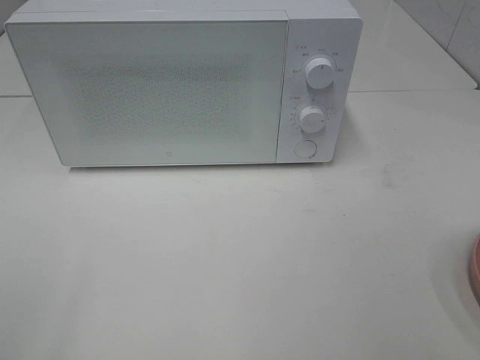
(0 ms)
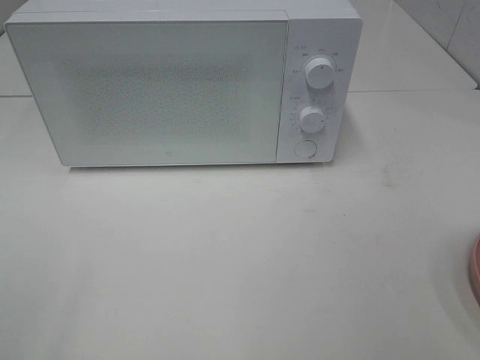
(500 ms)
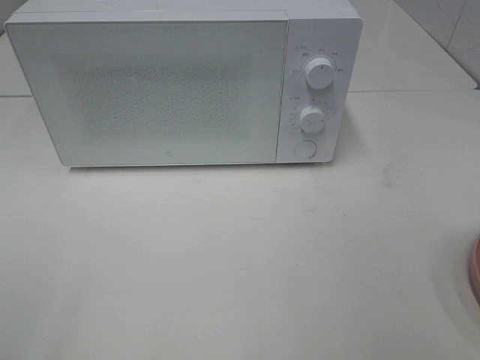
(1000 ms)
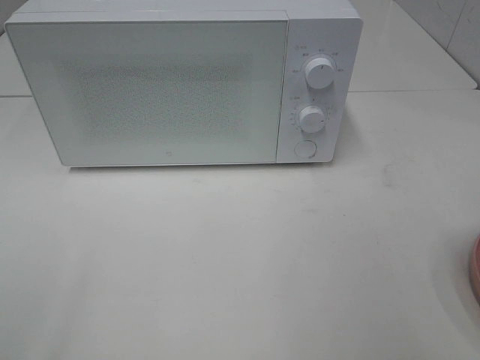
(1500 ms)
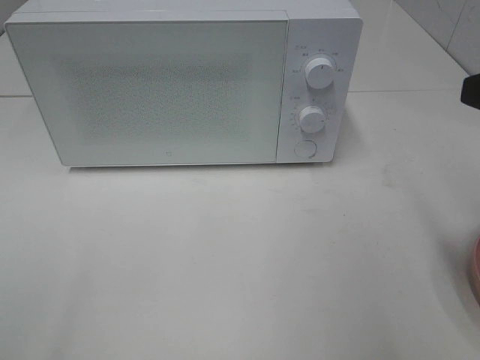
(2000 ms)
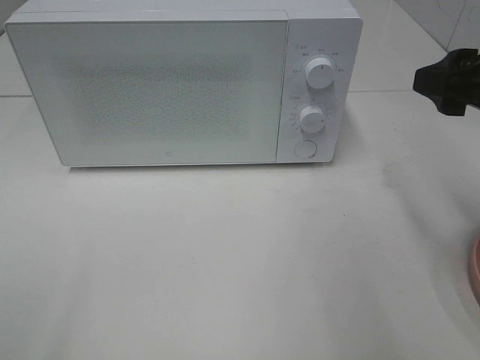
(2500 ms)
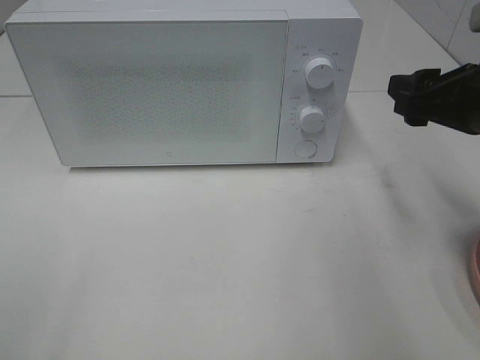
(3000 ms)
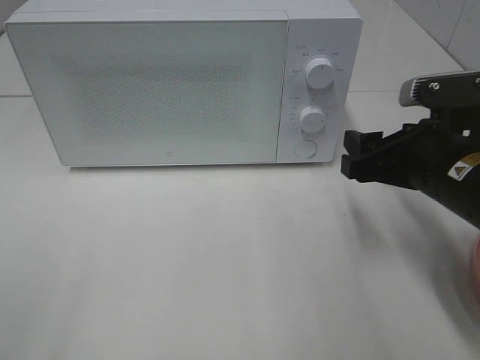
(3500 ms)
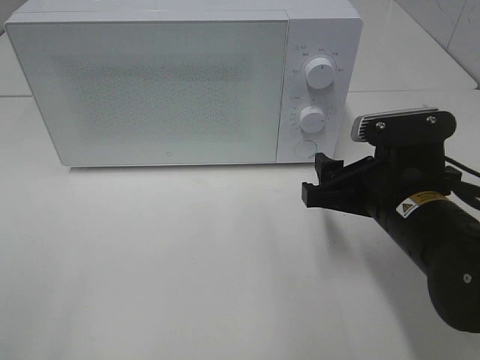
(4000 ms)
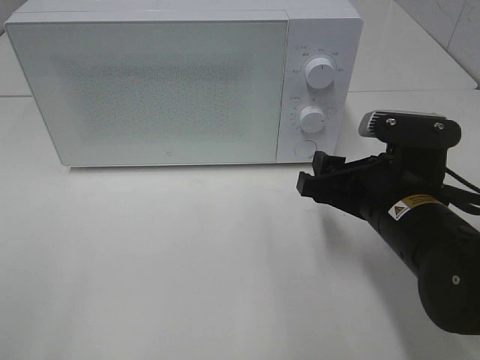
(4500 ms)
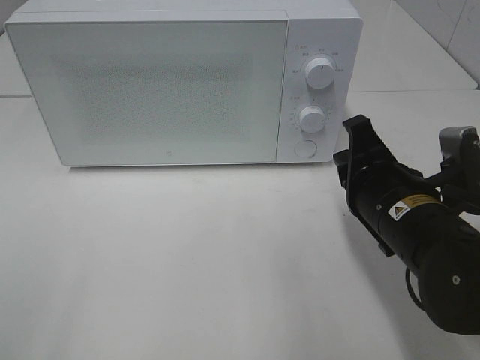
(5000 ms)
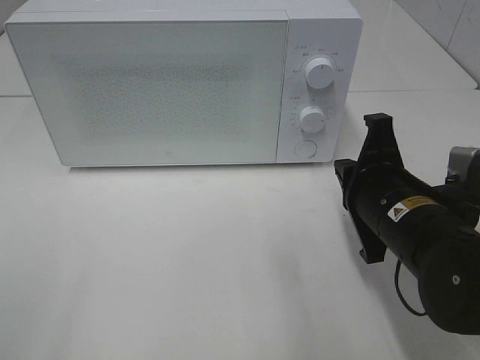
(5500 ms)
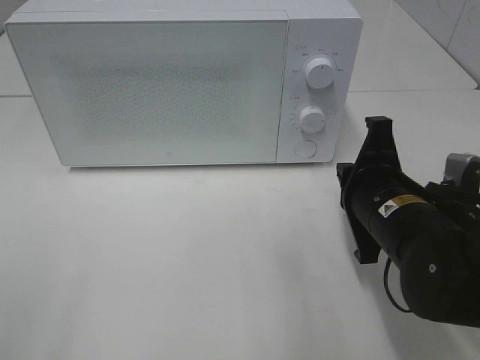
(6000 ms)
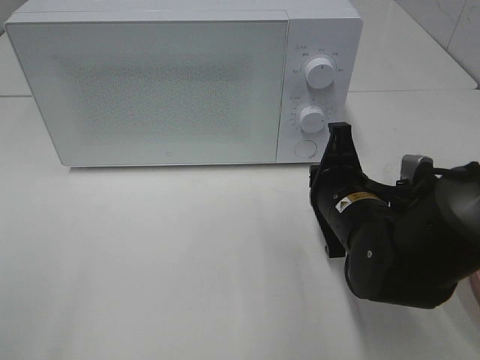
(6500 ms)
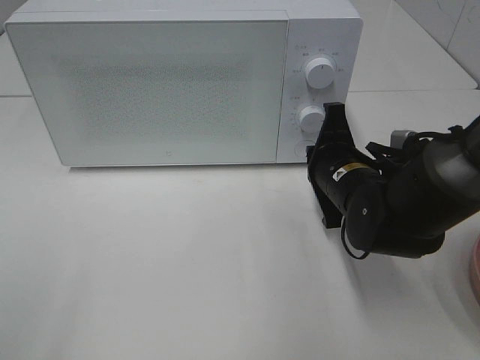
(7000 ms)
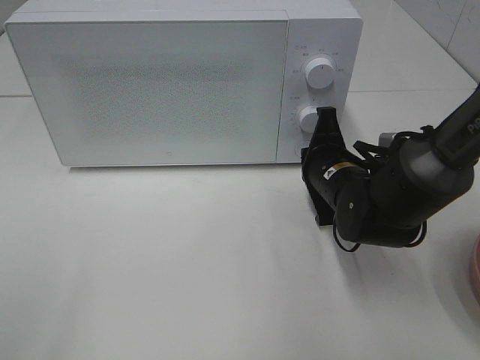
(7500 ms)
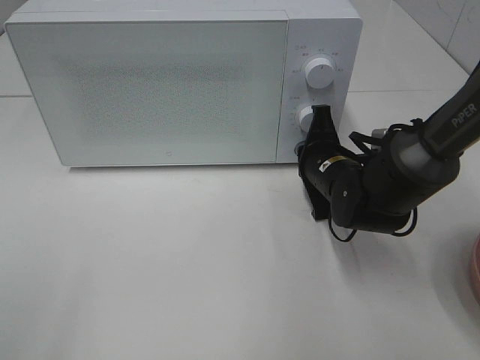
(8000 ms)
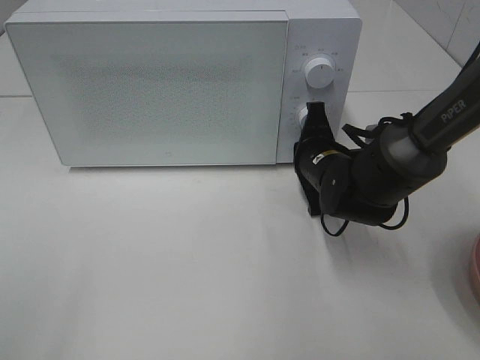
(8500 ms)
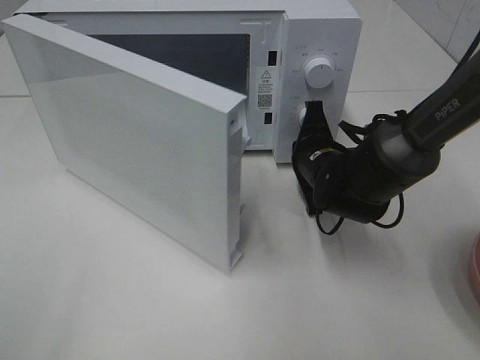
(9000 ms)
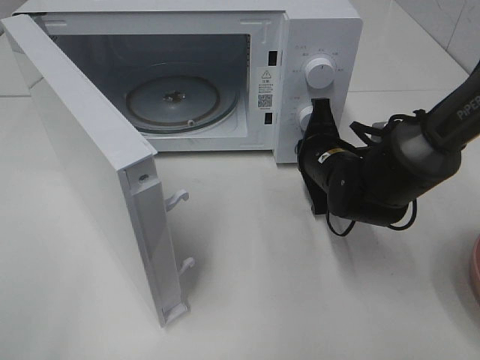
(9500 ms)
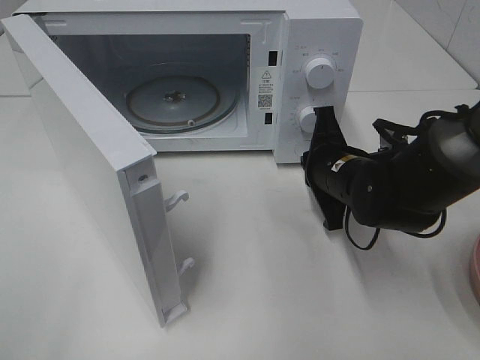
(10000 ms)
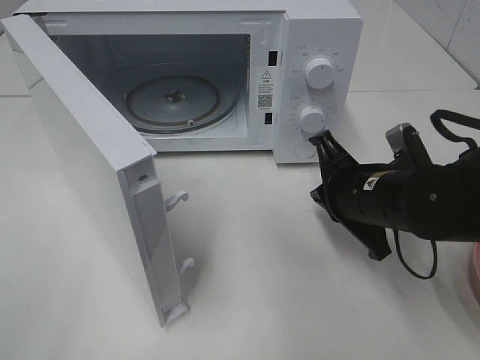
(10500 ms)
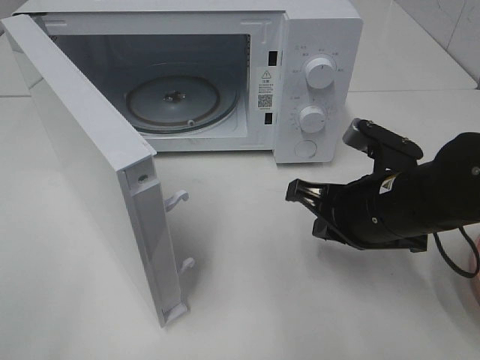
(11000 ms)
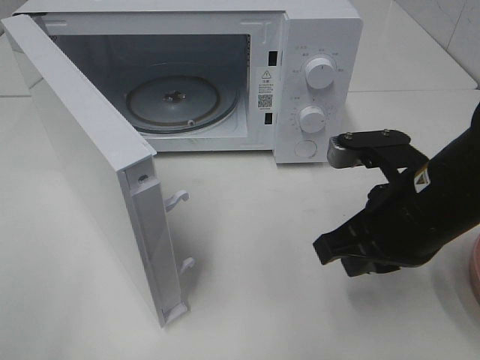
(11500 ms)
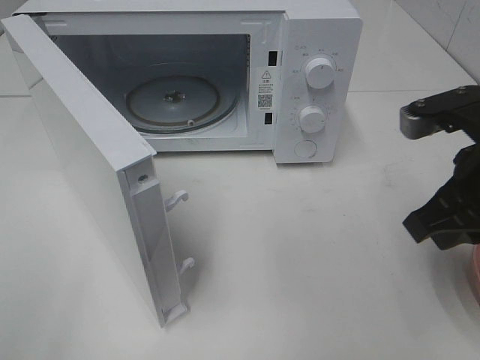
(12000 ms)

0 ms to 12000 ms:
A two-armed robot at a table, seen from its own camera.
Task of the whole recording: Heat the burger.
Step, 0 ms to 9500 ms: Right hand: press the switch.
0 ms to 2000 ms: The right gripper goes some 15 cm forward.
2000 ms to 4000 ms: The right gripper moves downward and to the left, some 20 cm.
4000 ms to 6000 ms: The right gripper closes.
6000 ms to 8000 ms: The right gripper moves forward and downward, some 15 cm.
10000 ms to 12000 ms: The right gripper shifts approximately 20 cm upward, backward and to the right.

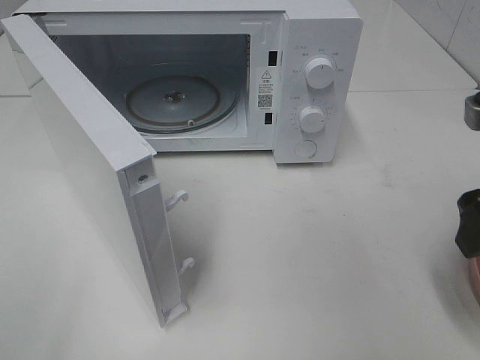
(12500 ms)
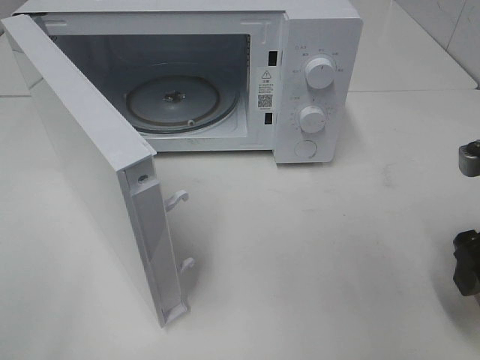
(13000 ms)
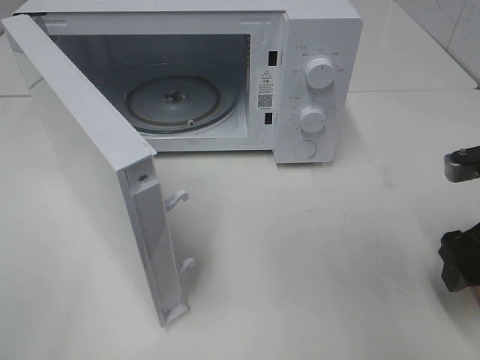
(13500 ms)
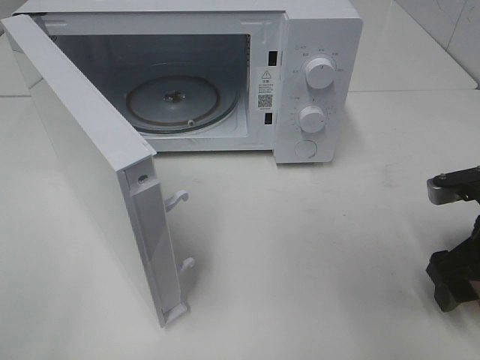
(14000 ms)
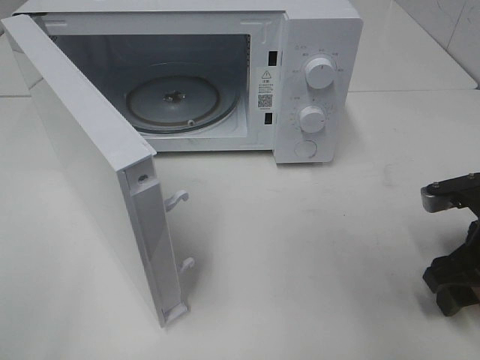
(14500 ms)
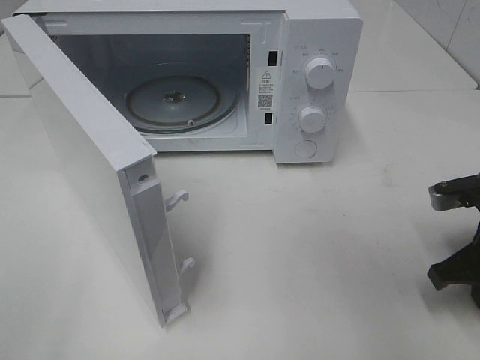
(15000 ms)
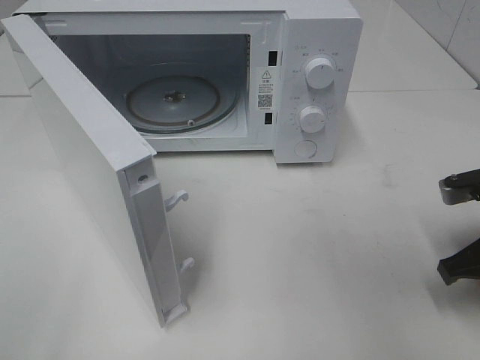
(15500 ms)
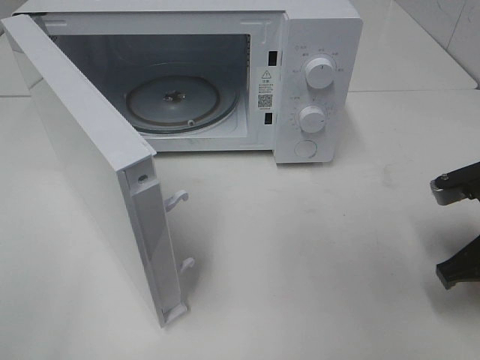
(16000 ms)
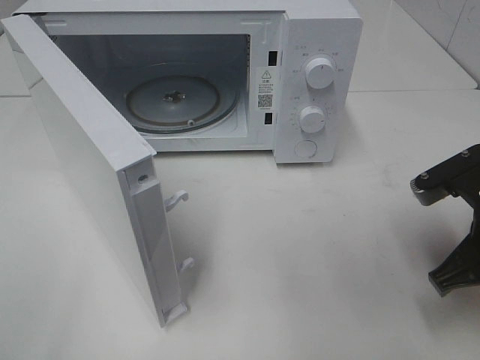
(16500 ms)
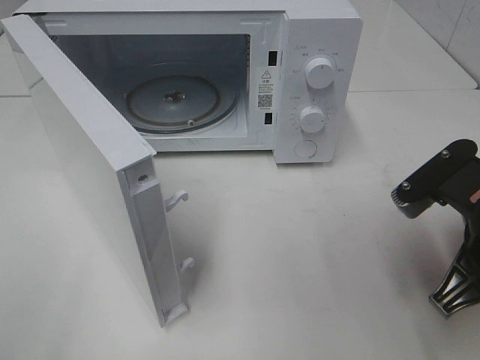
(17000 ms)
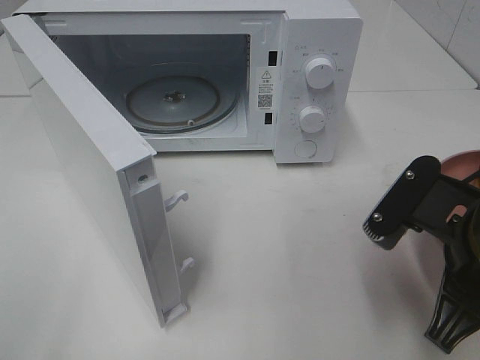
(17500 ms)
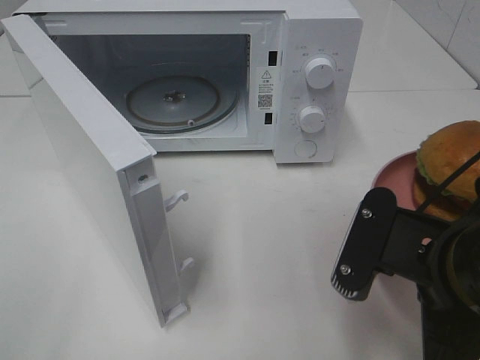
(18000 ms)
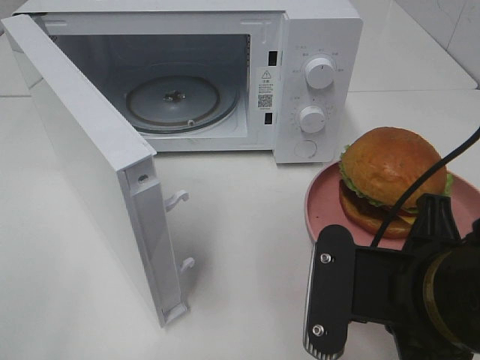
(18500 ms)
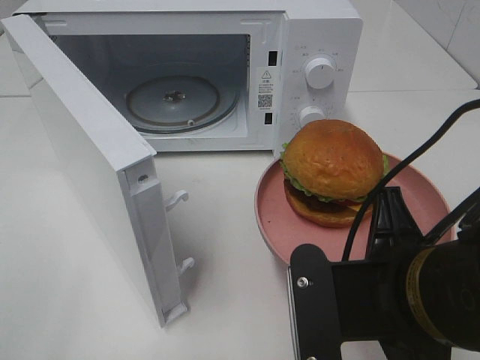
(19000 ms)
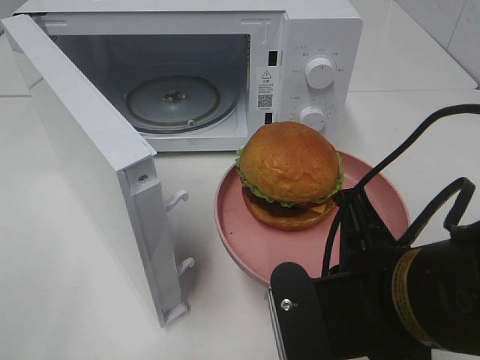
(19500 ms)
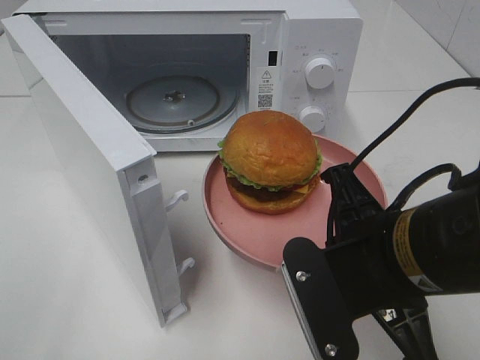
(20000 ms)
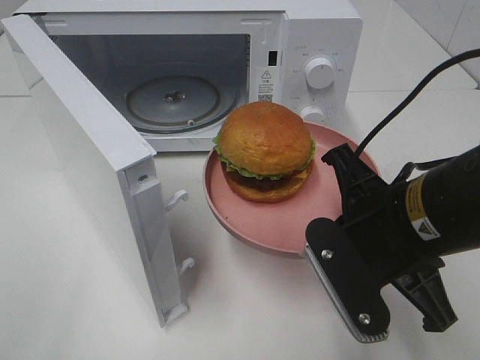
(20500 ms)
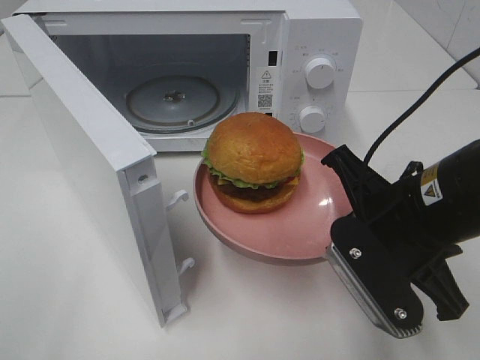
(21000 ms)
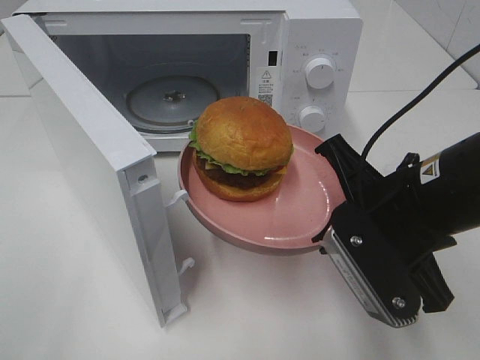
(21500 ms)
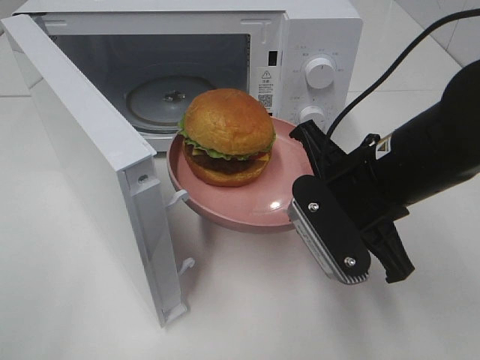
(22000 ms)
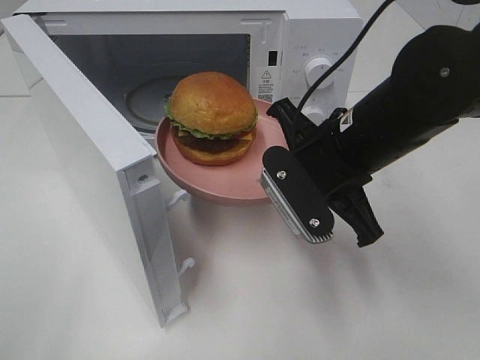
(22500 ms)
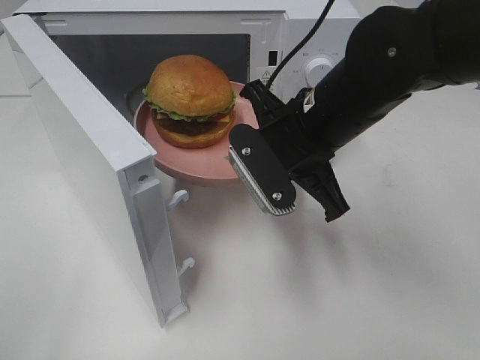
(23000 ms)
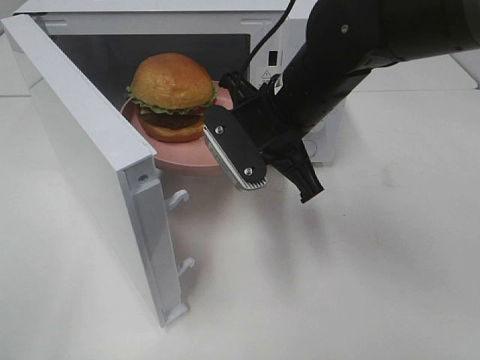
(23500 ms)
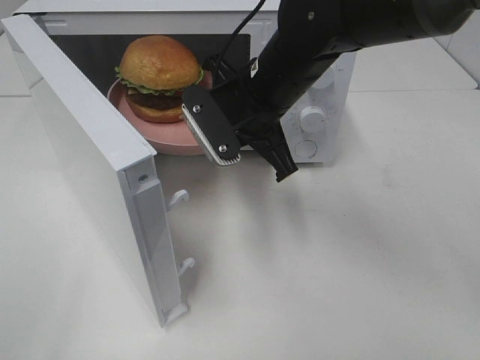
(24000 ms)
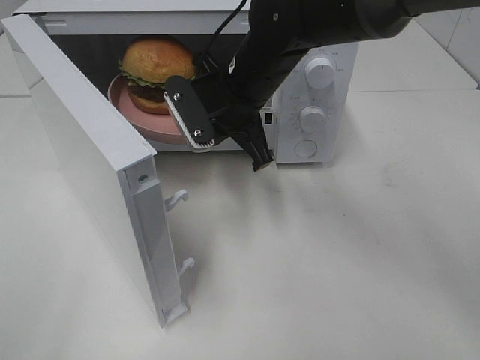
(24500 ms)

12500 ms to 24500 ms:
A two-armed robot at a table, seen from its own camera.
Task of the whole recording: Heat the burger.
Step, 12500 ms to 15000 ms: Right hand: grab the plate with the hamburger.
12500 ms to 14500 ms: The right gripper heads downward, covering approximately 10 cm.
14500 ms to 16500 ms: The right gripper ends up roughly 5 cm from where it was, and closes up.
16500 ms to 18500 ms: The right gripper moves to the left and backward, roughly 15 cm.
18500 ms to 20500 ms: The right gripper travels forward by approximately 5 cm.
20500 ms to 22500 ms: The right gripper is displaced forward by about 10 cm.
22500 ms to 24500 ms: The right gripper goes approximately 15 cm forward and to the left.

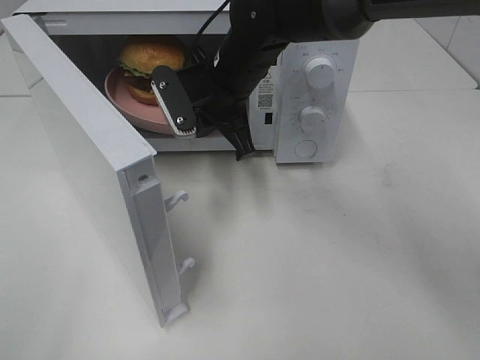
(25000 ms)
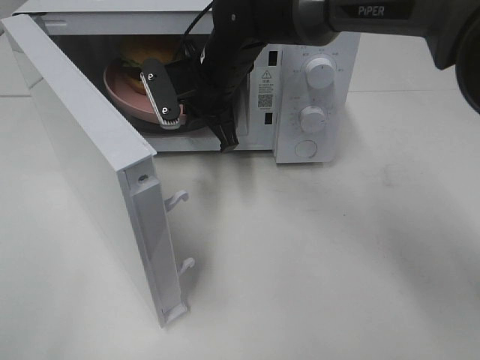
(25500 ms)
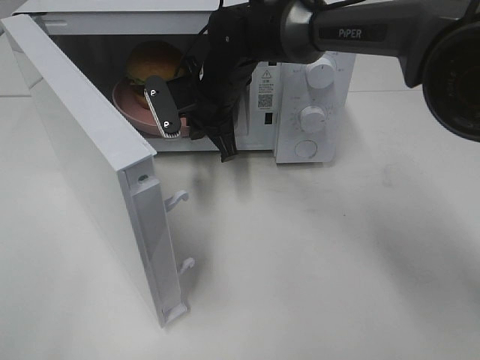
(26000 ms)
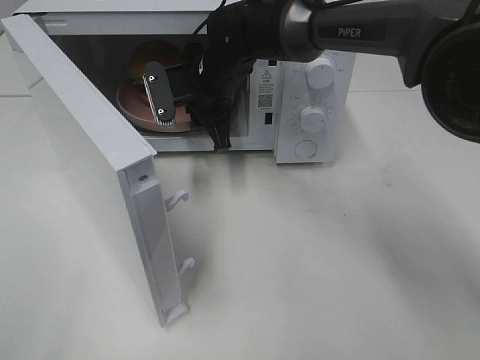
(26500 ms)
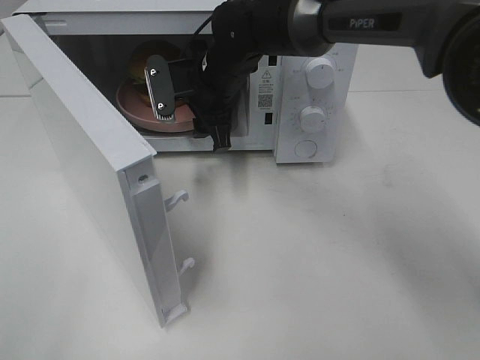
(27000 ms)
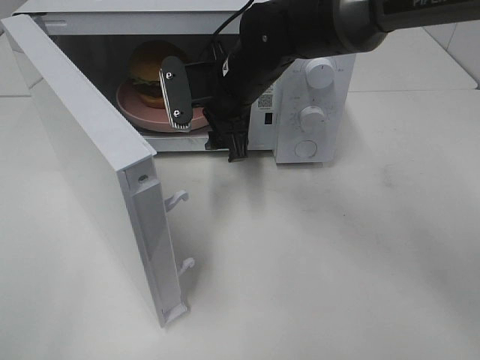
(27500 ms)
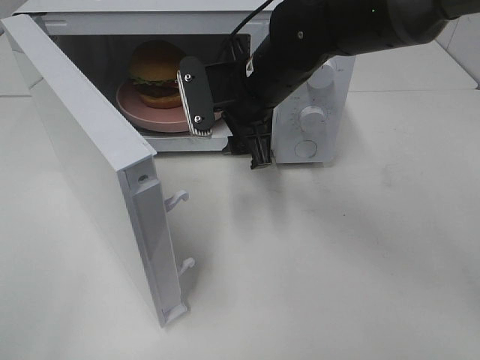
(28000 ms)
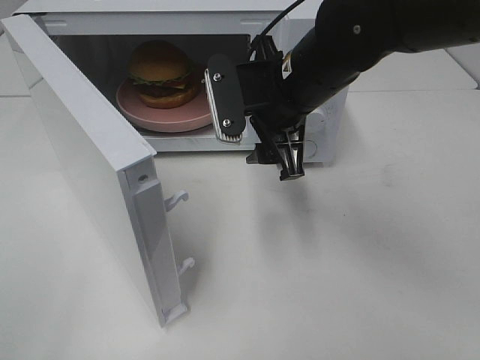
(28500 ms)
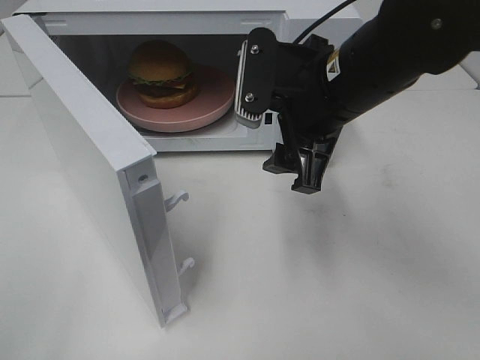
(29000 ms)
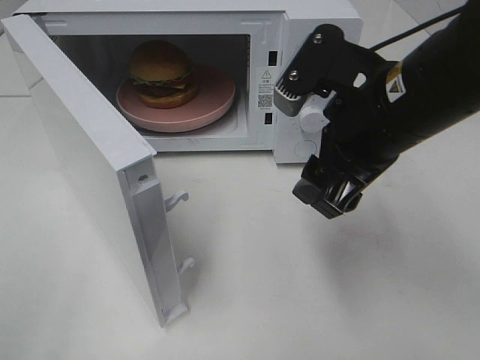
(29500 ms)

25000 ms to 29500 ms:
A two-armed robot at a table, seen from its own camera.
Task of the whole recording: Heat the burger.
25000 ms to 27000 ms: The right gripper opens up.
27000 ms to 29500 ms: The right gripper travels backward and to the right by roughly 25 cm.
